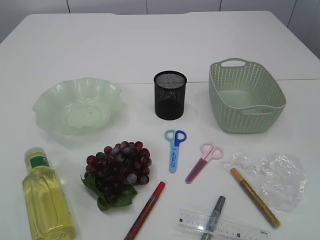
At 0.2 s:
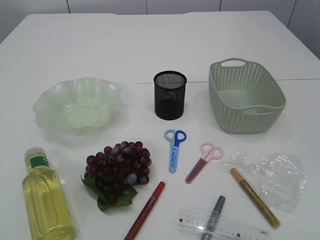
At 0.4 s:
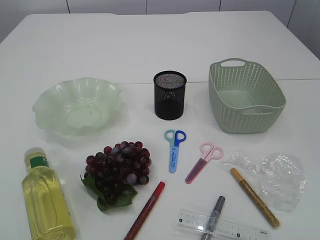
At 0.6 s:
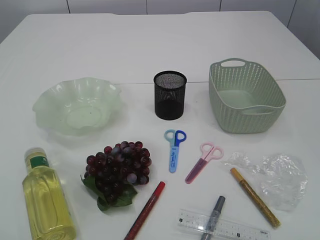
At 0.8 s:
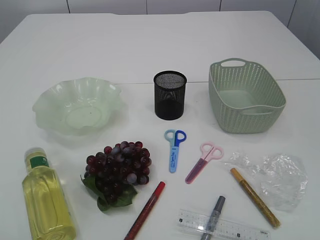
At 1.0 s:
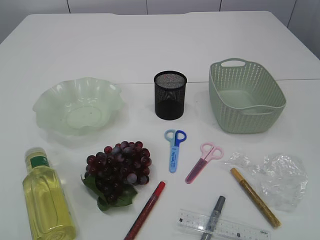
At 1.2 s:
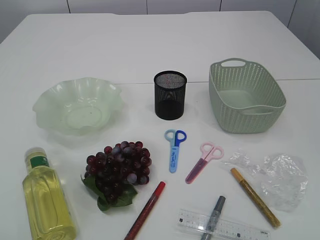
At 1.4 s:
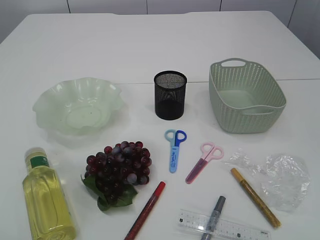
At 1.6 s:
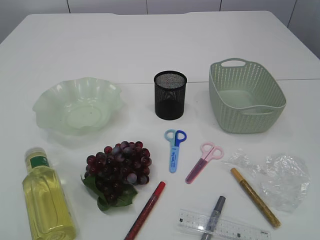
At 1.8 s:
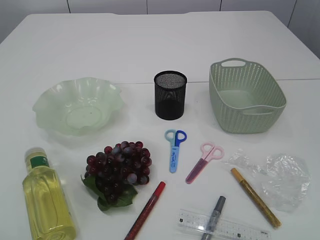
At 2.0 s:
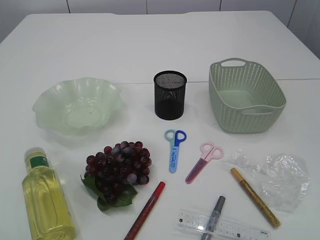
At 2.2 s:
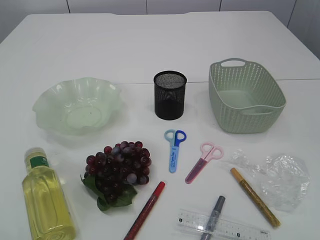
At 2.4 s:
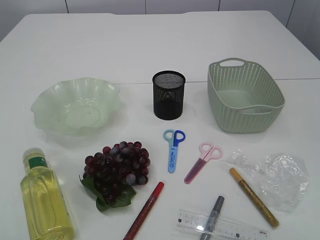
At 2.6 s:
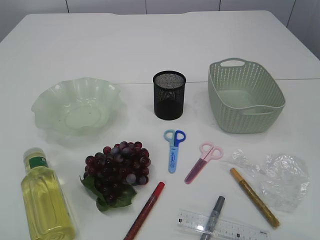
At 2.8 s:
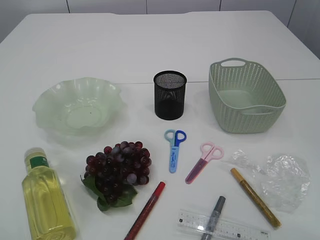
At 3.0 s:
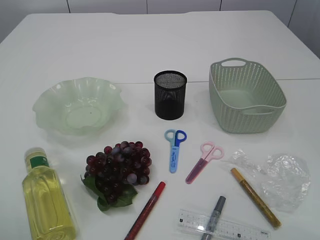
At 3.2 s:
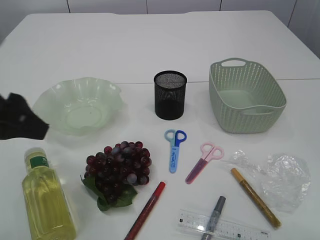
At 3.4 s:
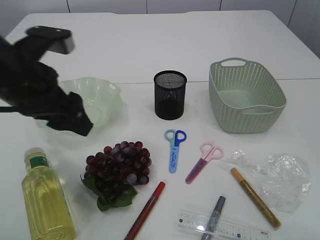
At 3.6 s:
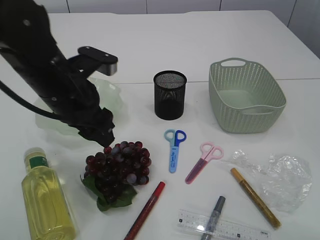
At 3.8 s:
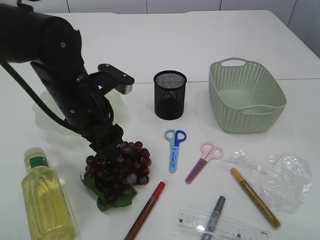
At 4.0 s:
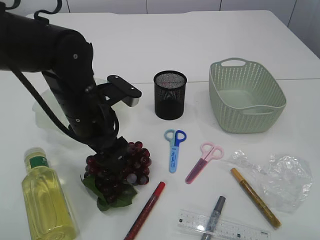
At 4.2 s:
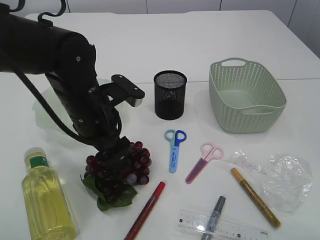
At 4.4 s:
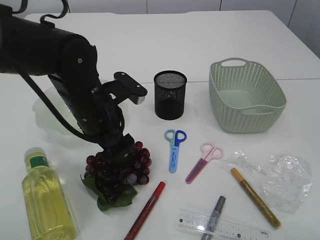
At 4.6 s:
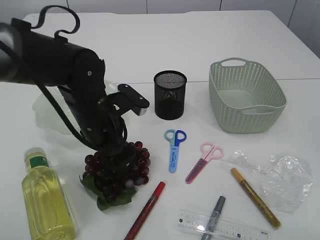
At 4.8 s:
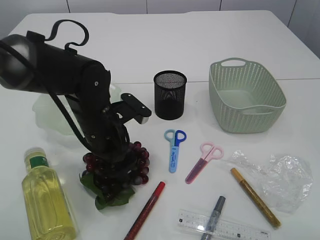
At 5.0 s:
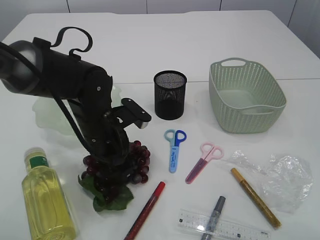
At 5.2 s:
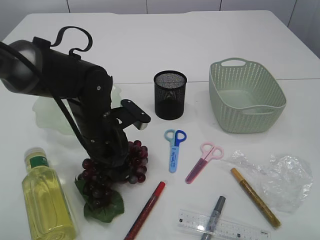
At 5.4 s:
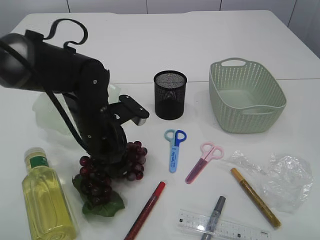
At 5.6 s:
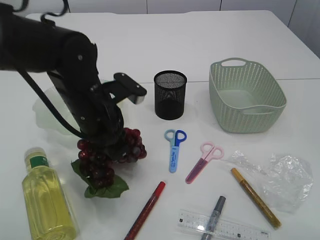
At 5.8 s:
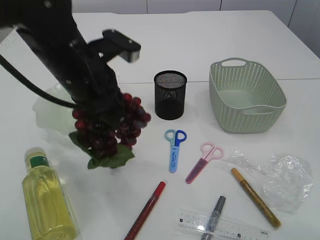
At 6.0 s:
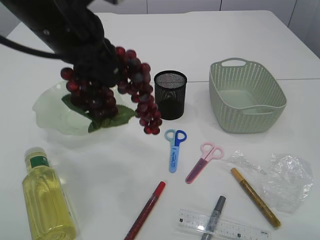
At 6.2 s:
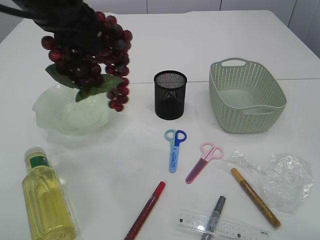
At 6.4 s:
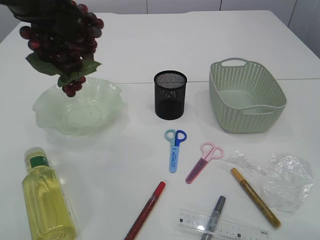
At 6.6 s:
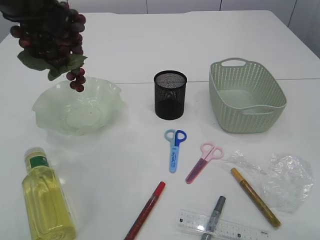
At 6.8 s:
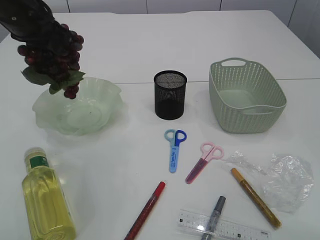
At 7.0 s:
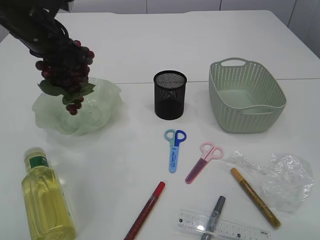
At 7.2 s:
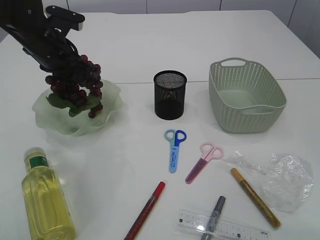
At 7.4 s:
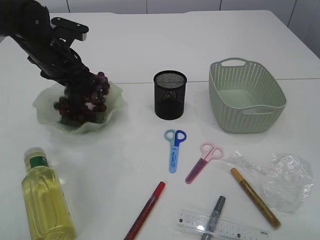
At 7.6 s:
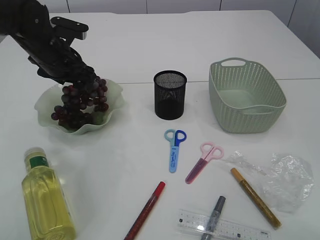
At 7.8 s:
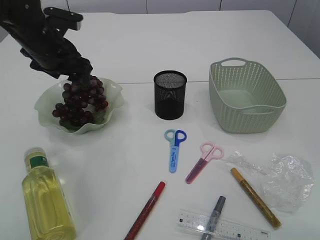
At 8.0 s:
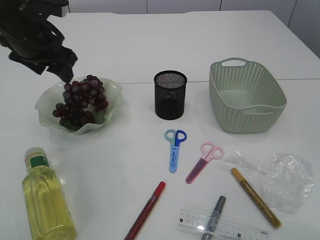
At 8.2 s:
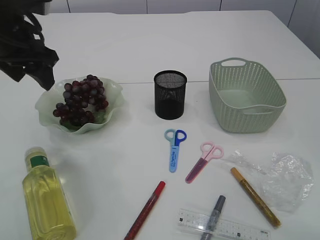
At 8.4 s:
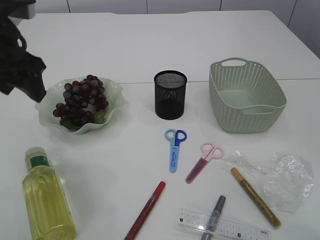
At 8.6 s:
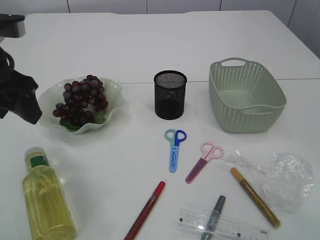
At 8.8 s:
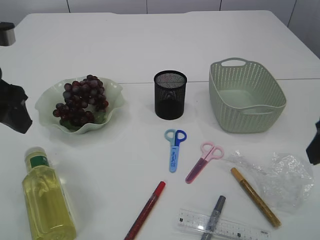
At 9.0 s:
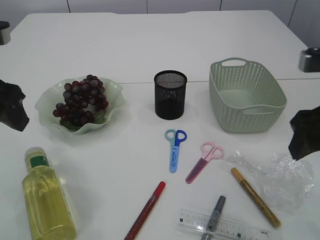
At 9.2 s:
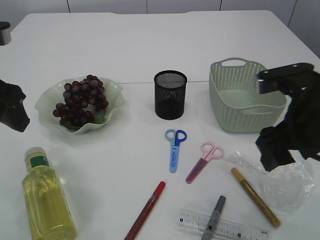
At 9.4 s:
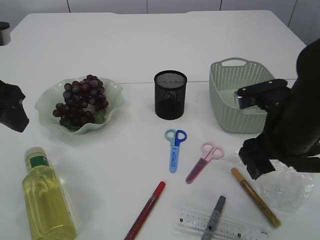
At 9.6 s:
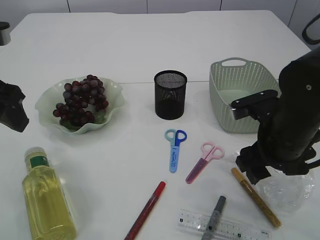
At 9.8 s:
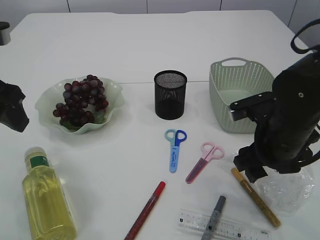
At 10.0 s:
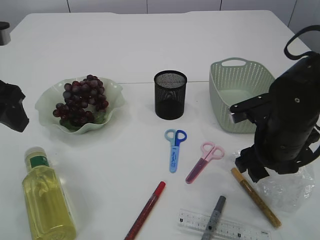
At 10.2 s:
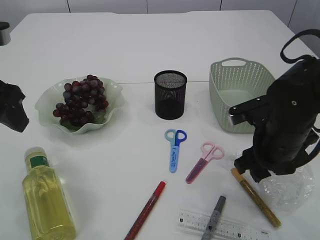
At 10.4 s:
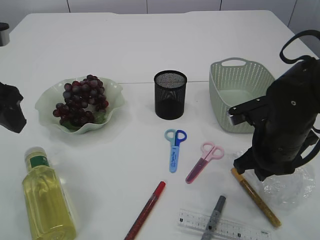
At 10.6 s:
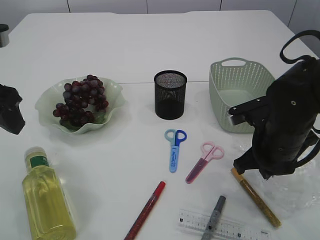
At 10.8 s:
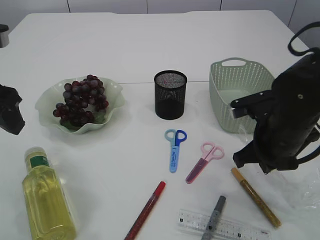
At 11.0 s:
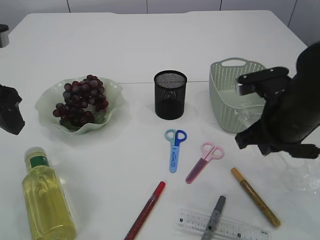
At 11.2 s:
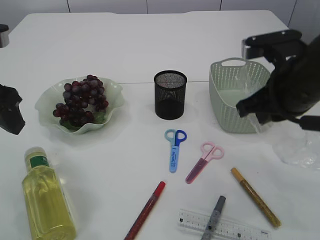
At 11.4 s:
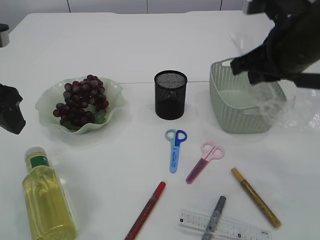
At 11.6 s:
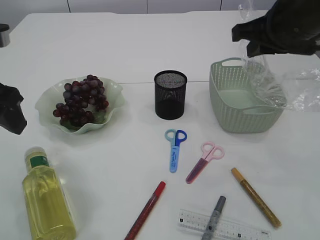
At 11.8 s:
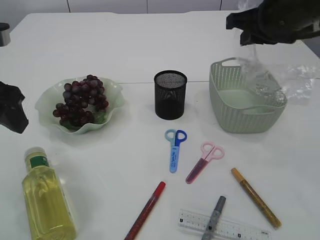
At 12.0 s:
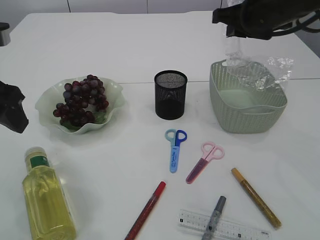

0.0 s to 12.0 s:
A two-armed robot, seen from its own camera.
Step, 0.0 to 5.8 s: Pick up the grapes.
Step, 6.0 to 8.2 s: Place the grapes in the plate.
Step, 8.4 to 11.2 s: Pick up the waste paper.
3.0 to 4.4 s: The left gripper moves to the right, forward and downward, approximately 25 cm, and opens its fingers.
4.4 to 6.0 s: The left gripper travels upward by some 15 cm, and closes.
6.0 to 7.6 s: The left gripper moves forward, downward and to the left, approximately 20 cm, and opens up.
7.6 to 9.0 s: The right gripper is displaced forward by some 15 cm, while the left gripper goes some 20 cm backward and upward.
9.0 to 10.4 s: The right gripper goes approximately 15 cm downward and forward, and closes up.
10.4 to 12.0 s: The right gripper is displaced upward and forward by about 20 cm, and closes.

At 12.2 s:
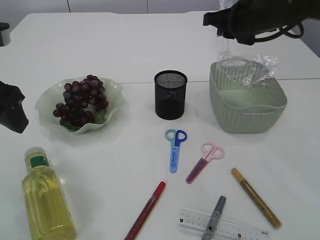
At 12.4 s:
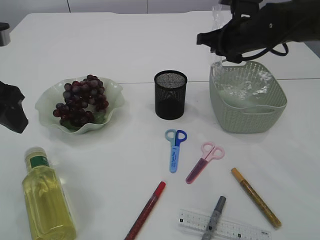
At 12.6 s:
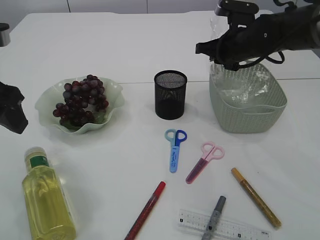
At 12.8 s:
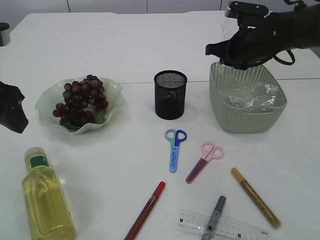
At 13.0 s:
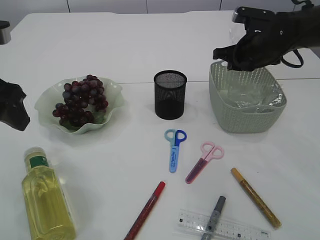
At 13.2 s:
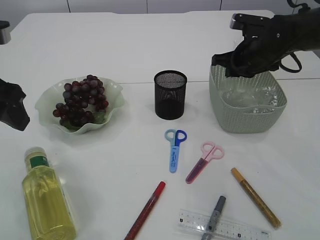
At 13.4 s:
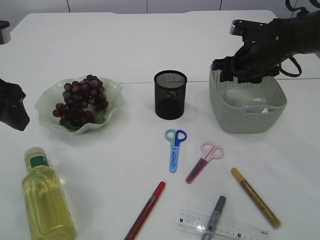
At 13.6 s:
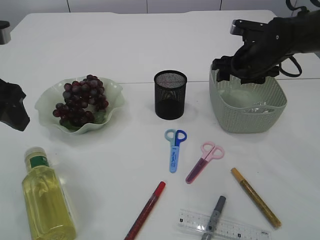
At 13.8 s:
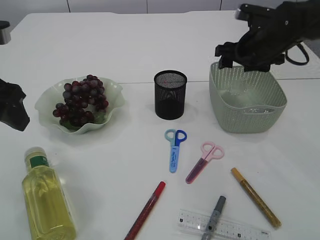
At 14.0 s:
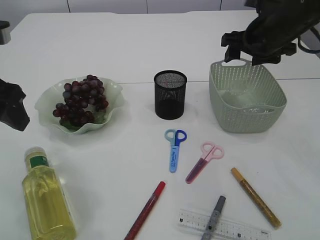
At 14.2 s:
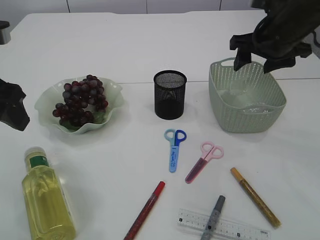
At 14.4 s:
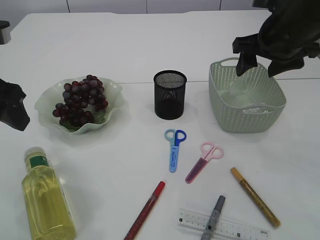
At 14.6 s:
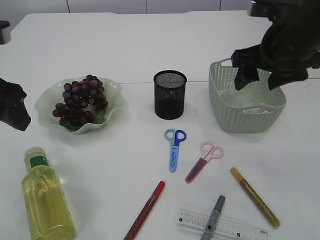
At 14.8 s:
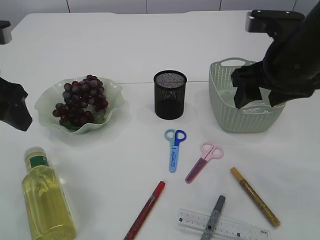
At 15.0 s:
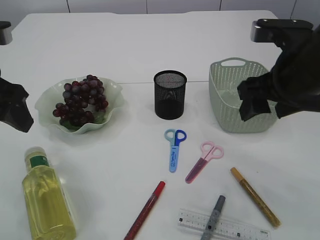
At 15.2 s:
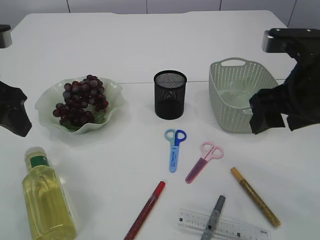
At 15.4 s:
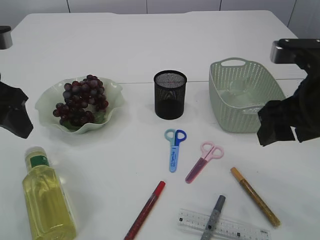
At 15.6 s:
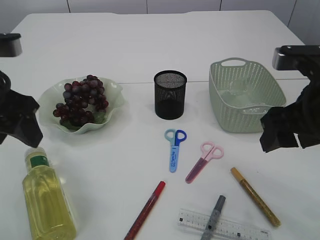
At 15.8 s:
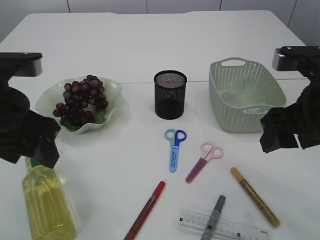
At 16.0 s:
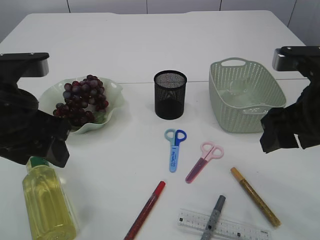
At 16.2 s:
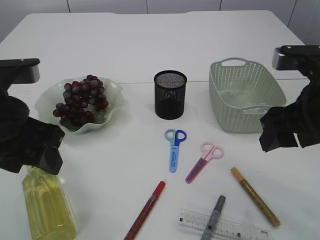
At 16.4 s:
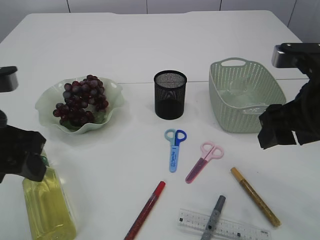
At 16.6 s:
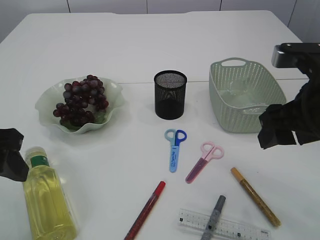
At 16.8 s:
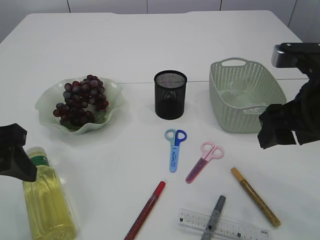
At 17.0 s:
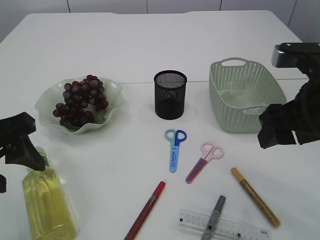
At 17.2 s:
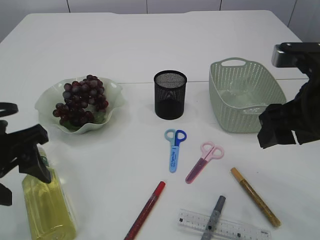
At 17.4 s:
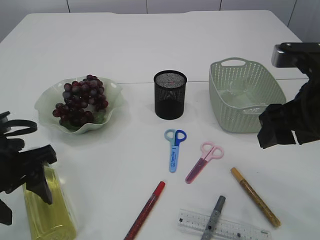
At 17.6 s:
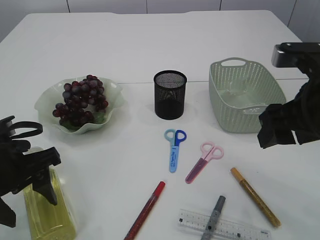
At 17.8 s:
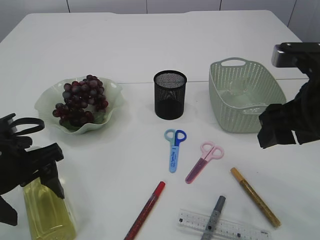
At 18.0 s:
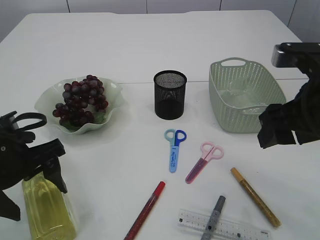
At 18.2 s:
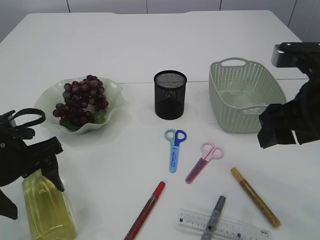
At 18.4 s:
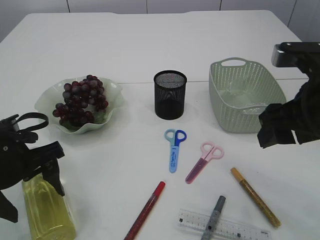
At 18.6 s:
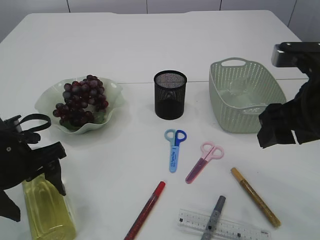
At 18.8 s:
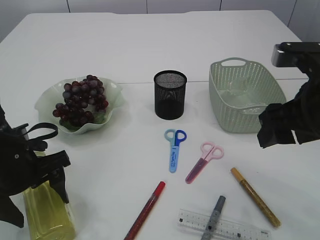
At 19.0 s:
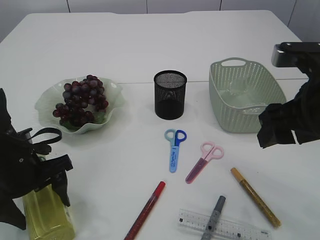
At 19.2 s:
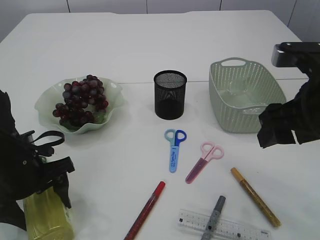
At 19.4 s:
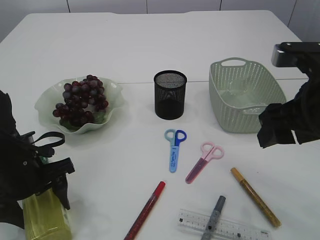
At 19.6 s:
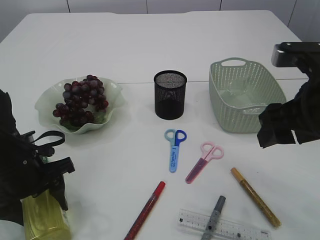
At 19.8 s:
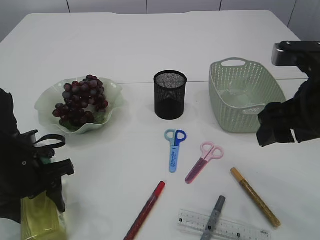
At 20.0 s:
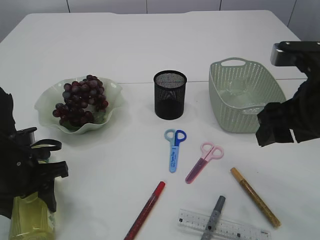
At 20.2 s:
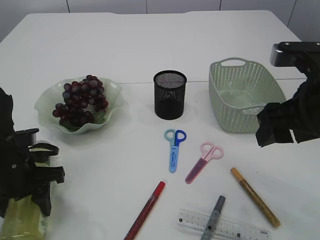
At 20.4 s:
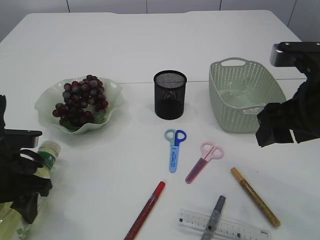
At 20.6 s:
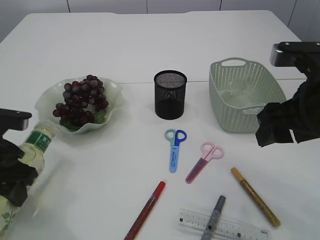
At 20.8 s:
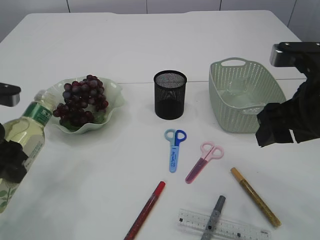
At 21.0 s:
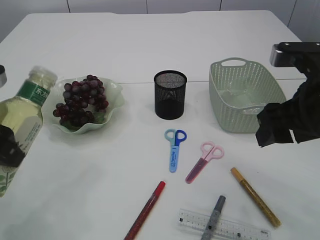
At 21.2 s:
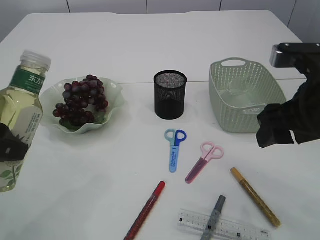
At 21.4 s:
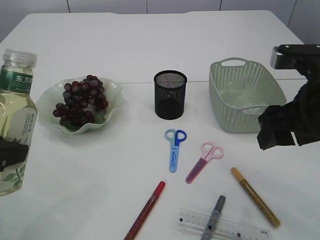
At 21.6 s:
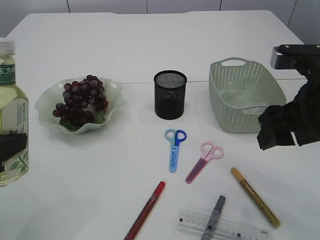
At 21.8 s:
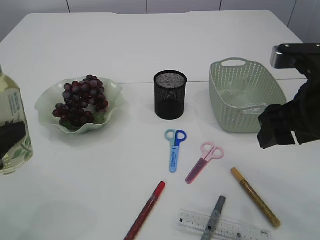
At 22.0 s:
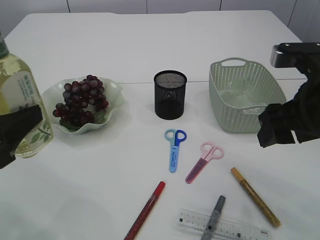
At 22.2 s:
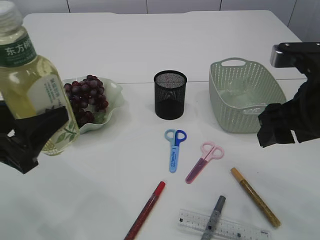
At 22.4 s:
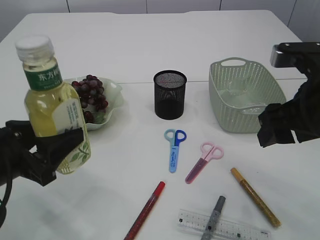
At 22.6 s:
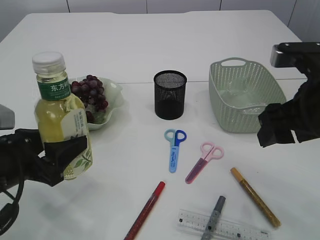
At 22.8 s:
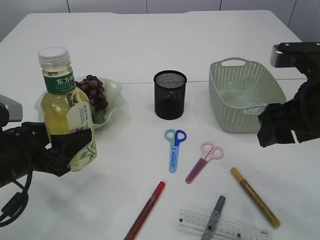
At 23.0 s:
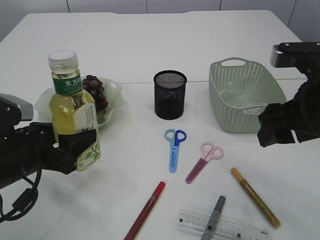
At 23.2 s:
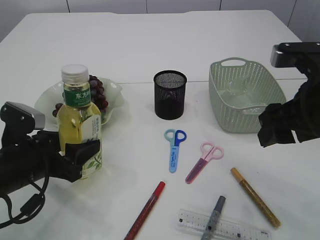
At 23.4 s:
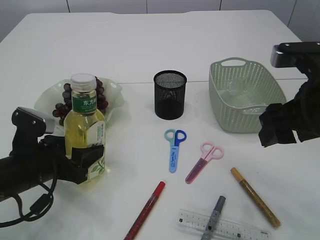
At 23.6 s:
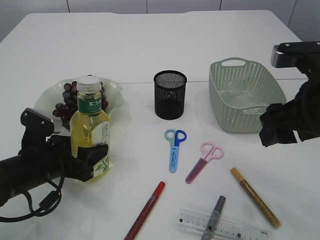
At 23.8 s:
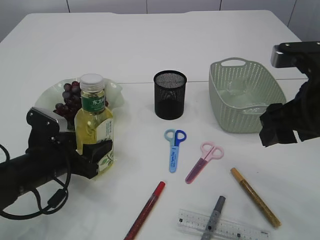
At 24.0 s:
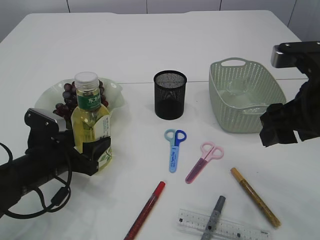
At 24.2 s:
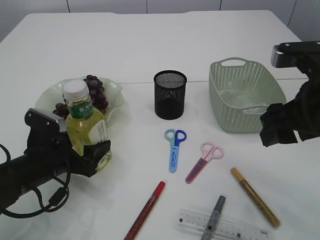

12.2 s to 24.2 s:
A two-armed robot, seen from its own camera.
Step, 12.2 to 14.8 s: Place the waste paper in the basket.
Step, 15.0 to 20.8 s: Pick up the bottle with the left arm.
12.2 to 13.8 s: The right gripper goes about 5 cm downward, and opens up.
13.8 to 15.2 s: The right gripper moves backward, some 20 cm.
15.2 to 16.6 s: The left gripper is displaced backward by approximately 5 cm.
16.6 to 18.2 s: The left gripper goes about 10 cm downward.
18.2 to 19.8 s: The left gripper shifts roughly 5 cm downward, and closes.
19.8 to 21.2 s: The left gripper is displaced upward by about 15 cm.
21.2 to 22.6 s: The left gripper moves downward, roughly 10 cm.
22.6 to 24.2 s: The left gripper travels downward and forward by about 10 cm.
